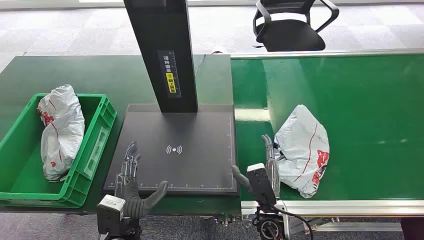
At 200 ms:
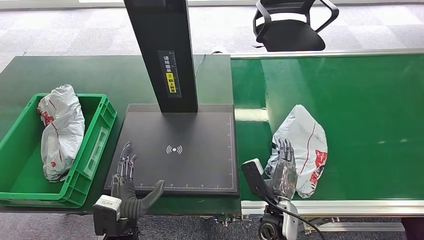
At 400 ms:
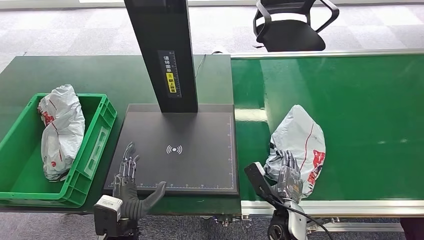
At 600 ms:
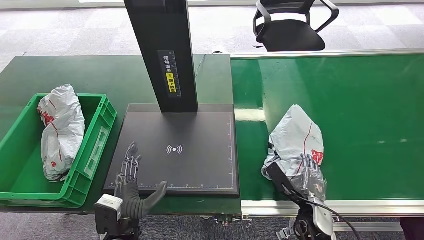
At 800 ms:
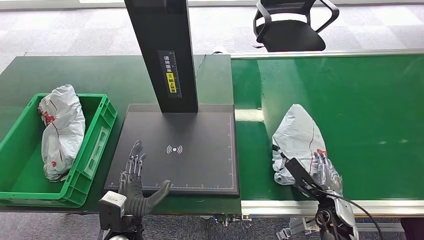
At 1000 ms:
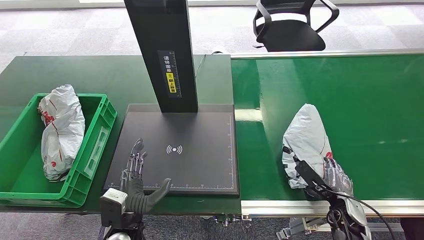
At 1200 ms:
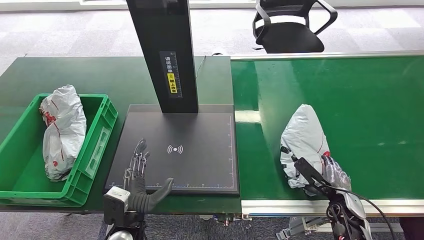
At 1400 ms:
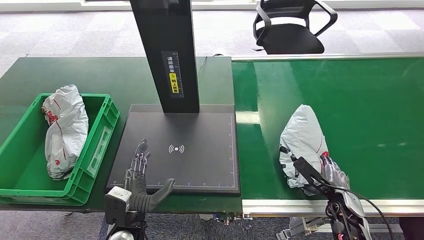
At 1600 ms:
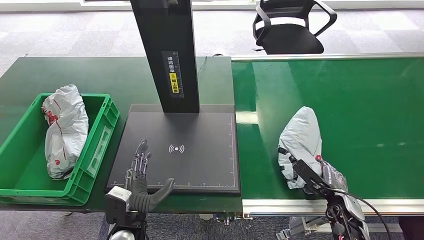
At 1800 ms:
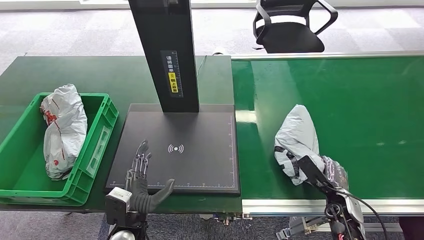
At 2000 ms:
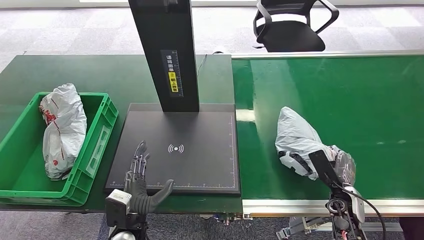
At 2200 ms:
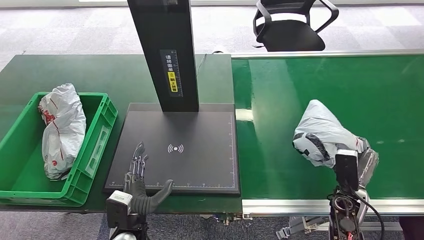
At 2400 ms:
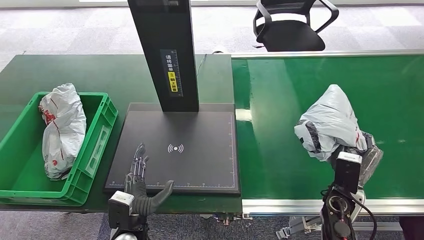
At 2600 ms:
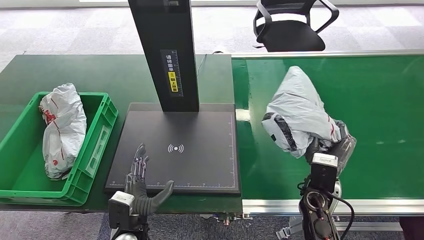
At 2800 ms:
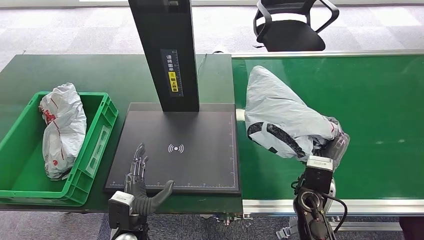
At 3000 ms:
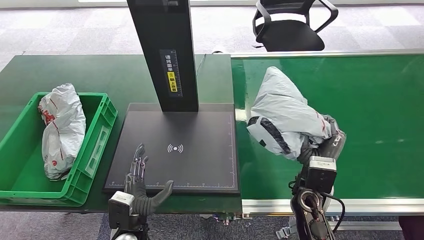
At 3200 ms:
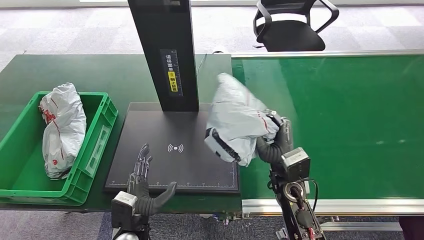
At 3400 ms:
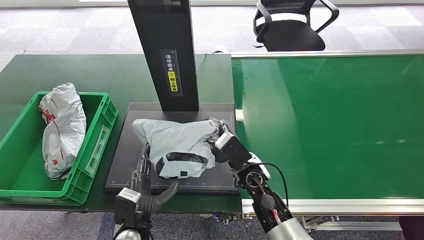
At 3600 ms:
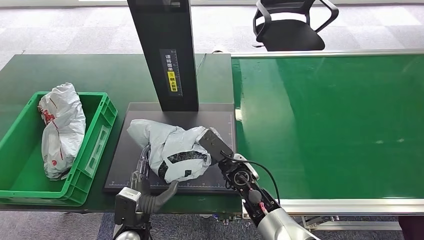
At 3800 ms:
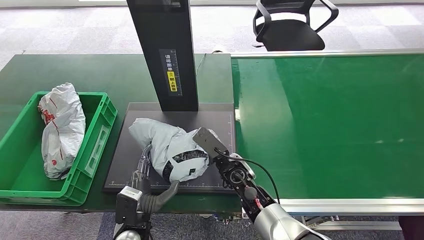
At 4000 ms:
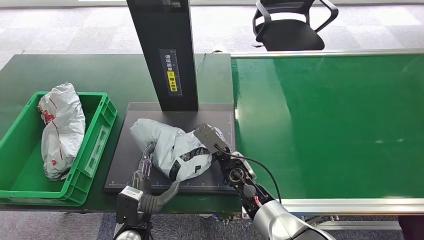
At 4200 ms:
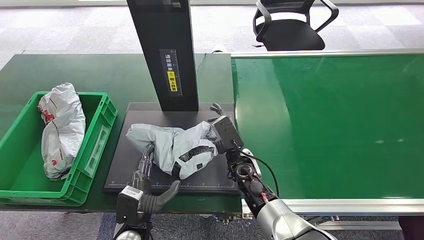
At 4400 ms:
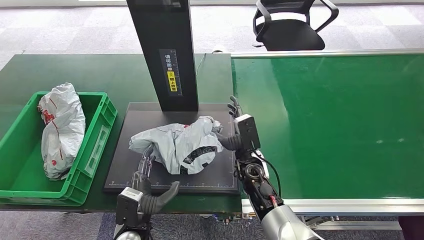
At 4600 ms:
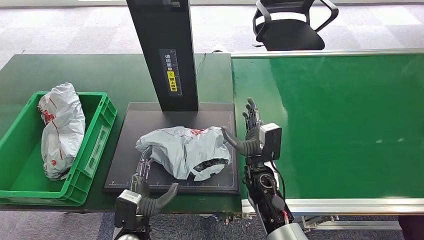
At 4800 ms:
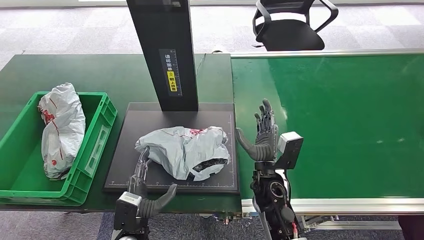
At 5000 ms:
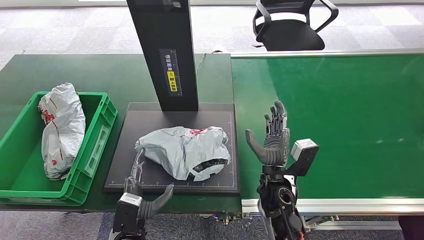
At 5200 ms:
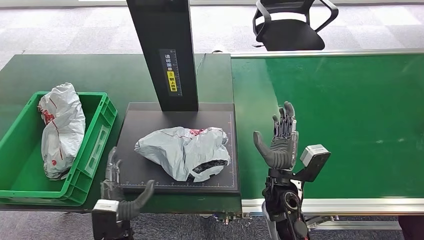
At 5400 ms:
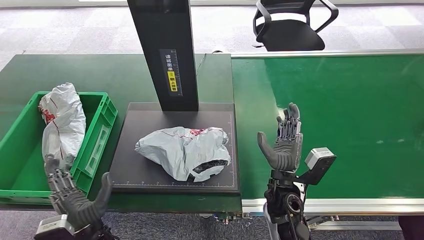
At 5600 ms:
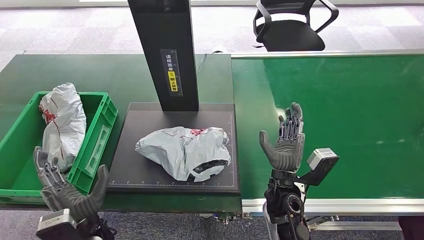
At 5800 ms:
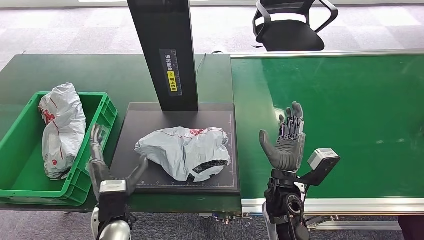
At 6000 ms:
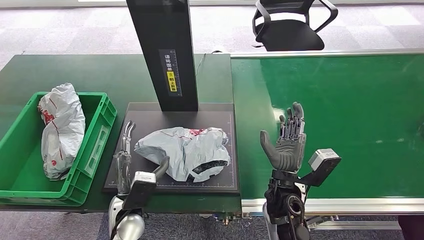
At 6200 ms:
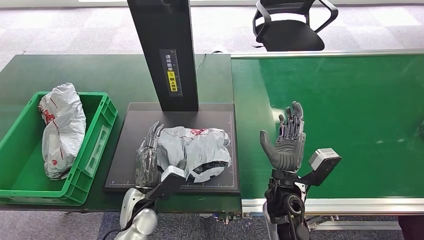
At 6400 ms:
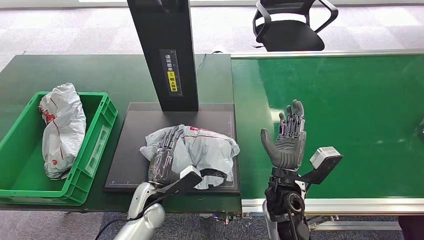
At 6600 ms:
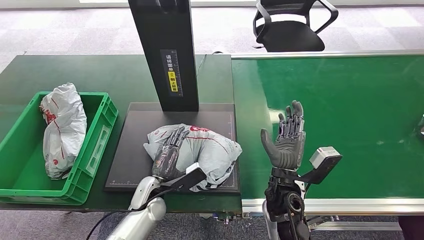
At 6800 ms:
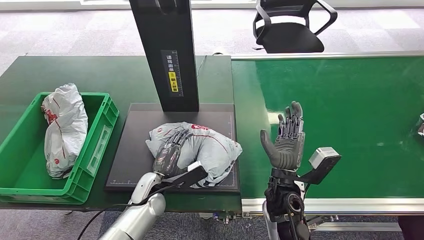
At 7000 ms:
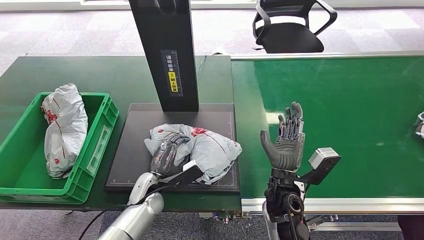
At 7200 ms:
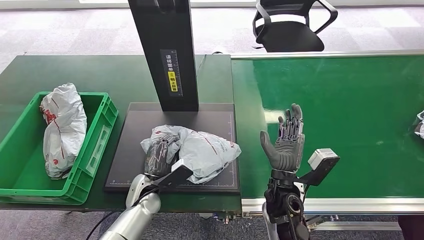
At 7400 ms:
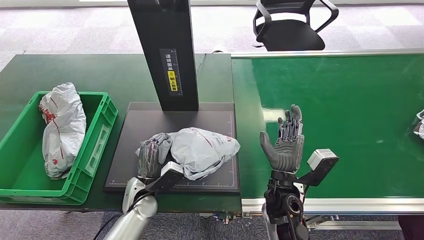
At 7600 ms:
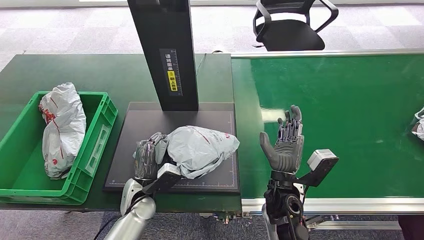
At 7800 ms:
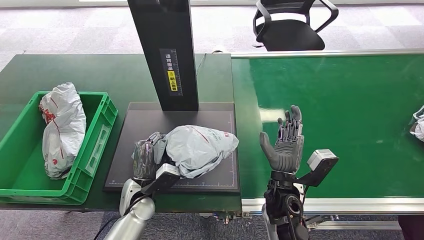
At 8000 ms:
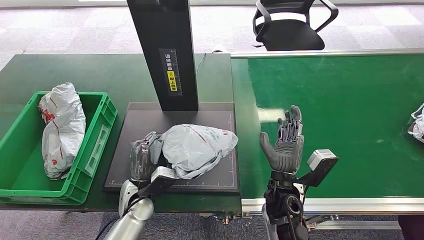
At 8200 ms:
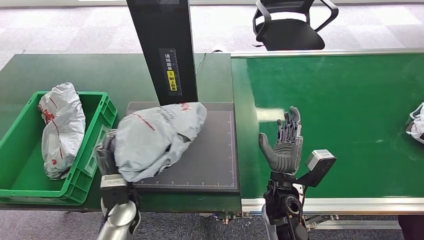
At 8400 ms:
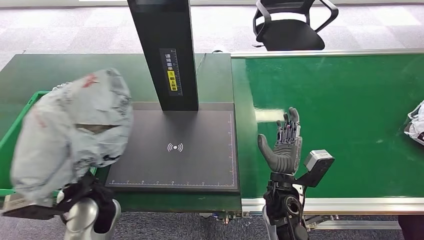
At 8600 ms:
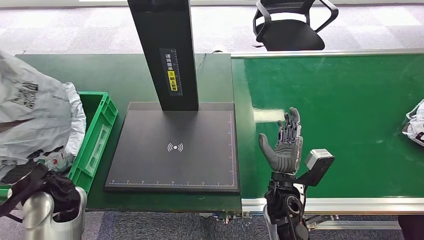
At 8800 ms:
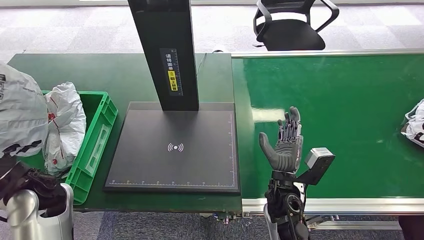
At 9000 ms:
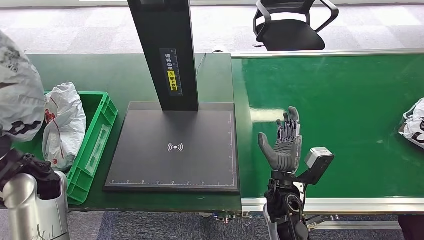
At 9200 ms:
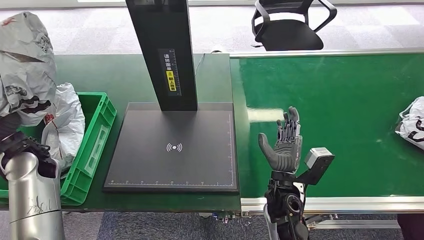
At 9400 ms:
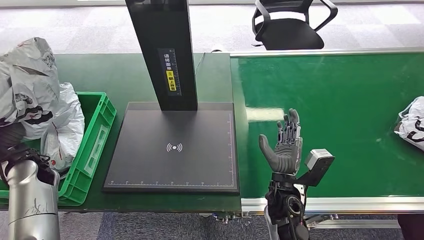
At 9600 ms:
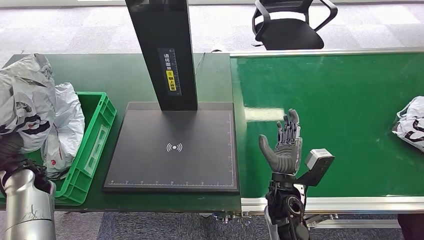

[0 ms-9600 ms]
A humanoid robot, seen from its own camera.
Step, 0 ms to 2600 ms: Pick up the package from the conveyor belt.
Step, 2800 ms to 5200 ms: Place the package onto the inbound machine.
Step, 5400 ms to 8600 ms: Pick up the package from the inbound machine.
4800 ms to 6400 ms: The left hand travels forward by some 10 cm.

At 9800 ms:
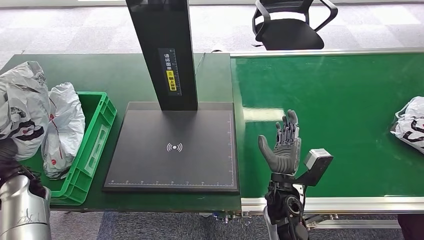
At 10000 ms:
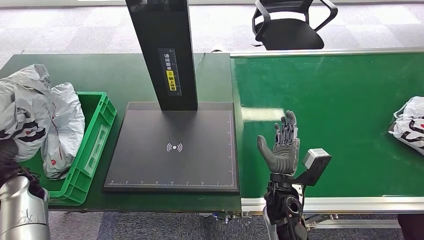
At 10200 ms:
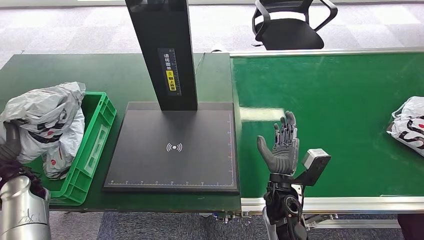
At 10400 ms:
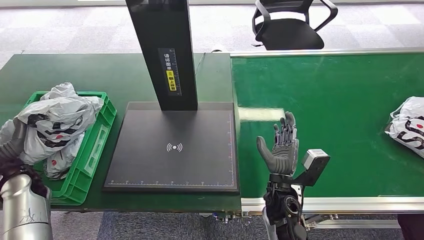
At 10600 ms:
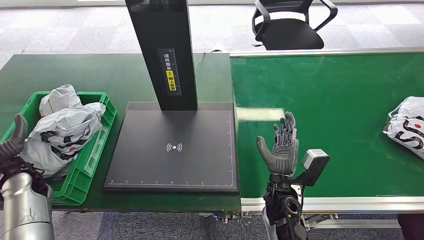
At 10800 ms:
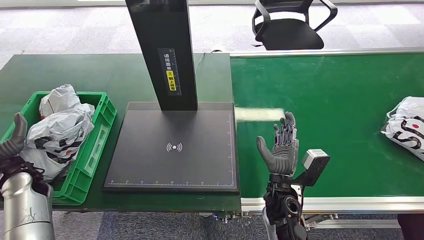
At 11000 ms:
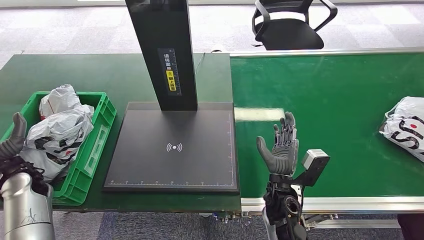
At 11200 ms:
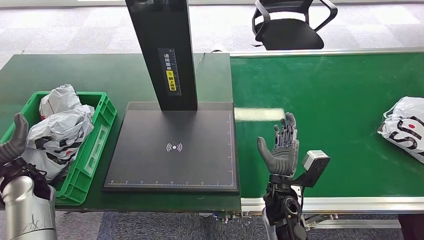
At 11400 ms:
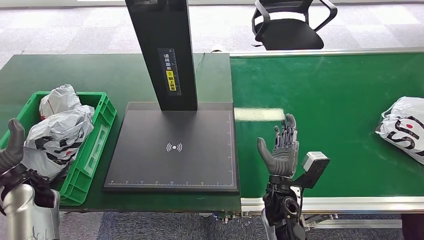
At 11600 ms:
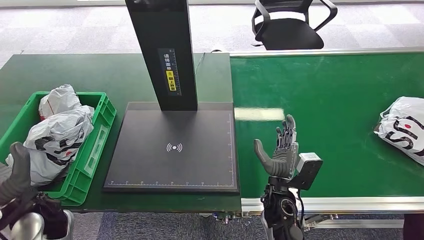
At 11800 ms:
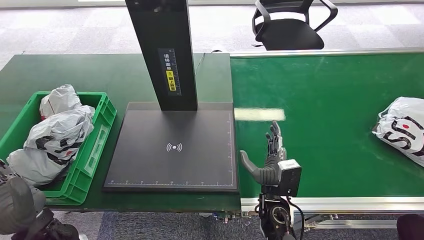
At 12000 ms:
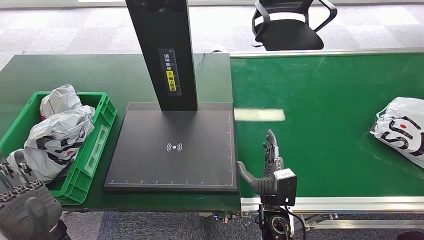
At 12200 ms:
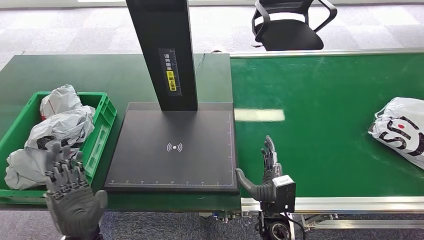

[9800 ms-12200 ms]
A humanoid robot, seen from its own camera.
Step, 9800 ms to 12200 ms: Place the package into the parcel locker.
9800 ms to 11000 ms: There are only small adjustments of the hands.
11000 ms to 12200 ms: The left hand travels to the right and backward by about 30 cm. Meanwhile the right hand goes some 5 cm backward.
